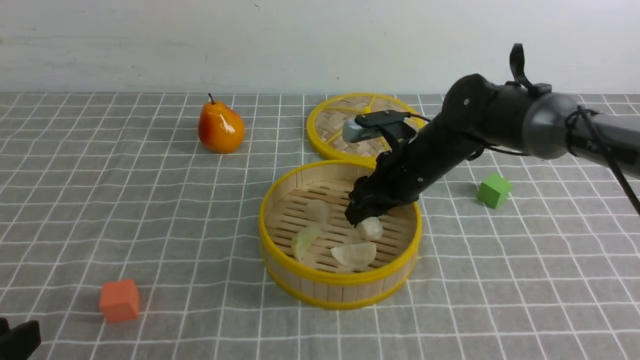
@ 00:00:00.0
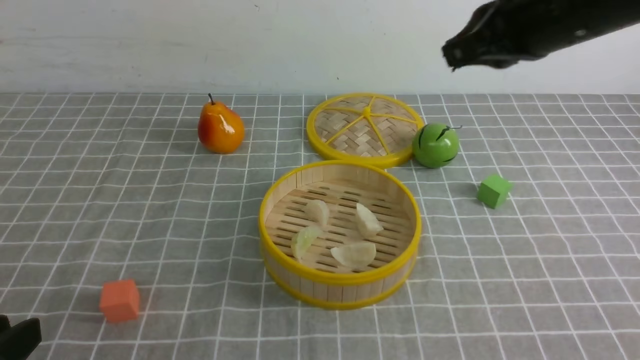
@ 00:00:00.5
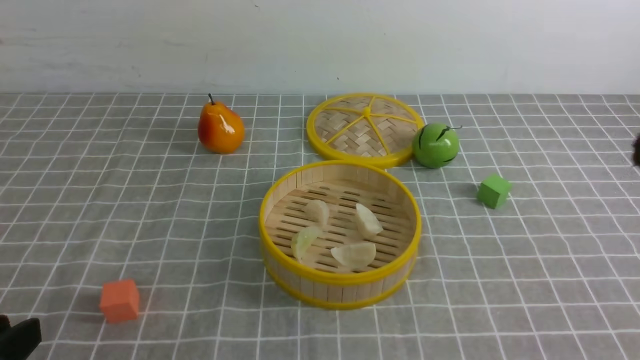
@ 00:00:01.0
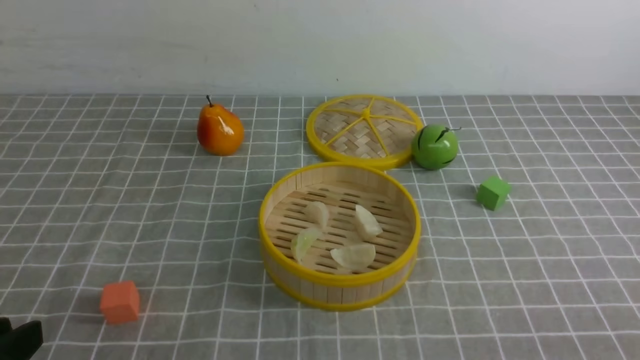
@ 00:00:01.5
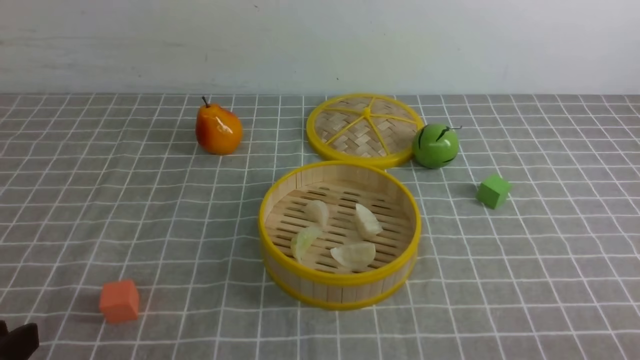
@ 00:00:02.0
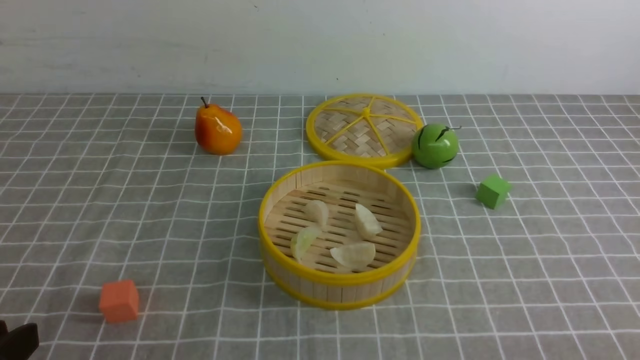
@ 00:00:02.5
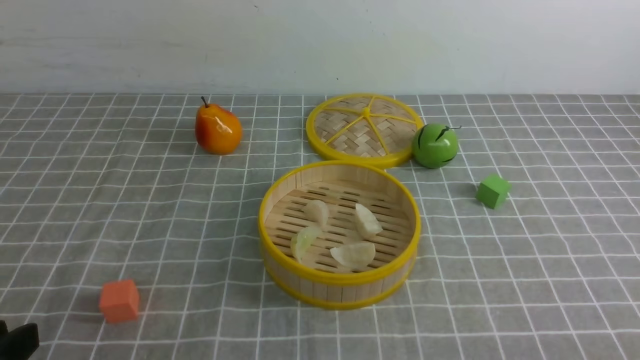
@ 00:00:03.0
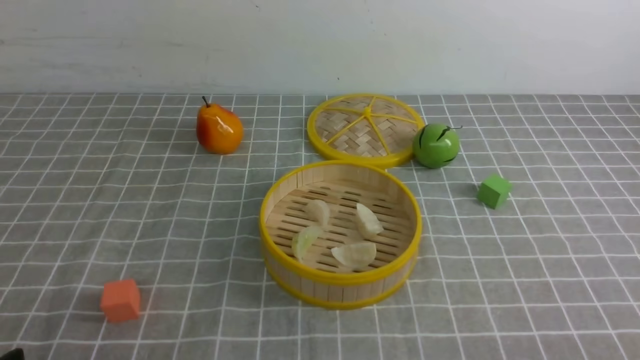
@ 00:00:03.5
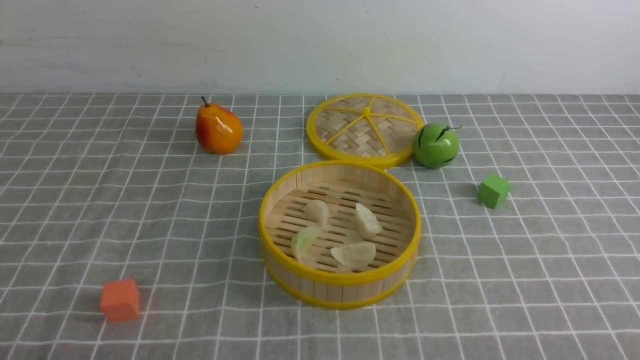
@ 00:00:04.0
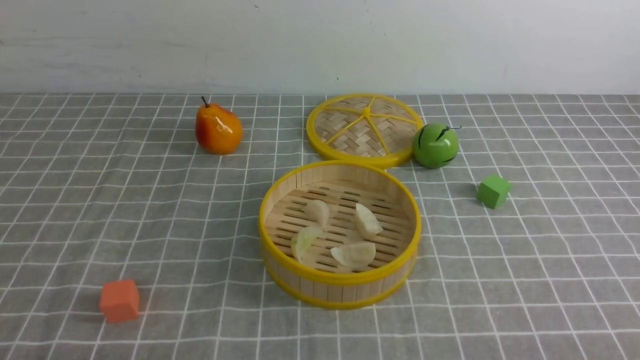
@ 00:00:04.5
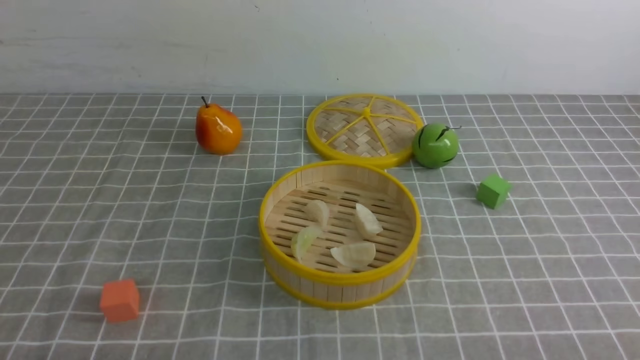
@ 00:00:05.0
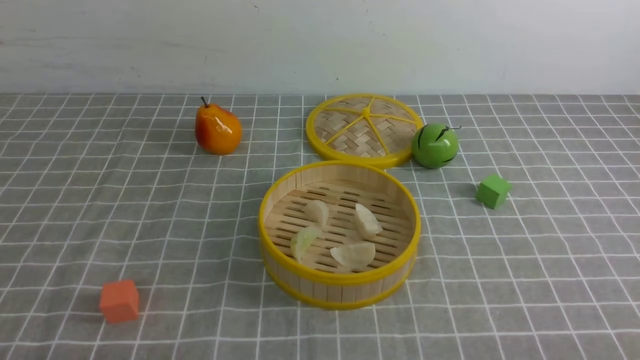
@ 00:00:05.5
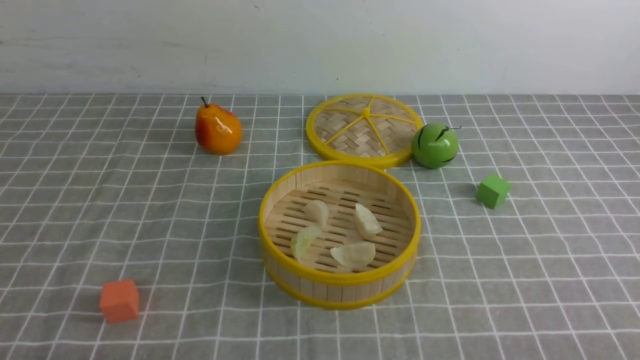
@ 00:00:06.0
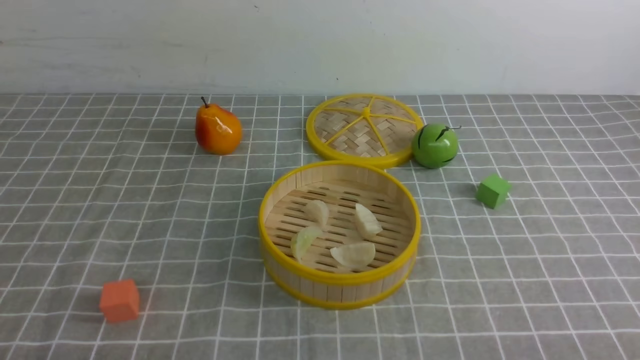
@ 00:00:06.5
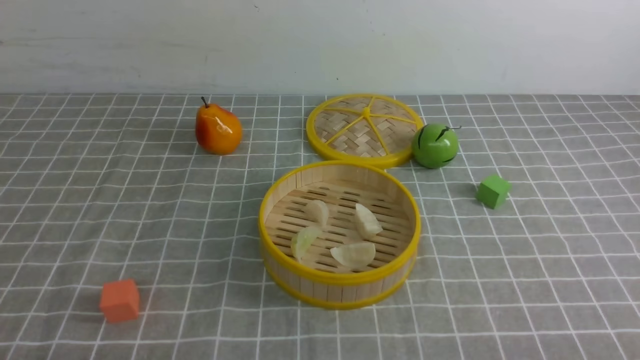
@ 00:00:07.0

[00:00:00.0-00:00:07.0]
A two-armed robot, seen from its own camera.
Task of the whole recording: put the dumplings into the steamer on the table with the grey tablecloth.
00:00:00.0 to 00:00:02.0: The right gripper travels backward and to the right by roughly 40 cm, and closes its fingers.
00:00:05.0 to 00:00:07.0: Both grippers stay about where they are.
